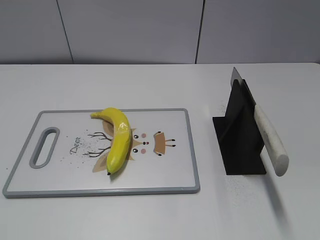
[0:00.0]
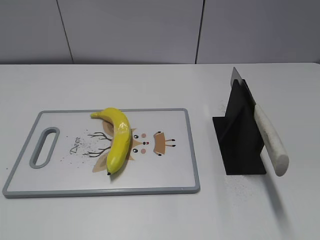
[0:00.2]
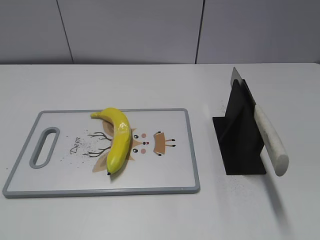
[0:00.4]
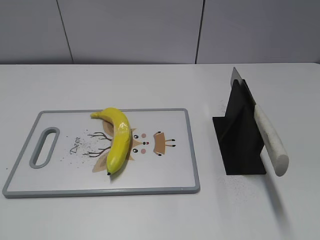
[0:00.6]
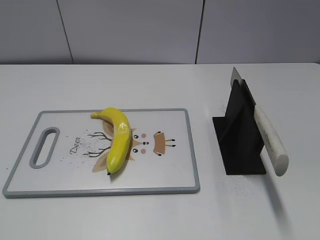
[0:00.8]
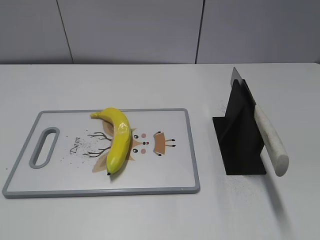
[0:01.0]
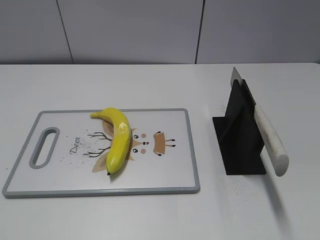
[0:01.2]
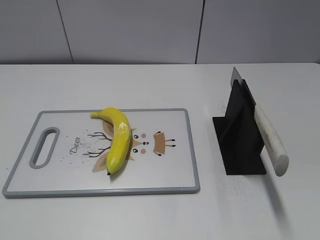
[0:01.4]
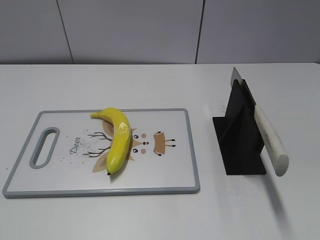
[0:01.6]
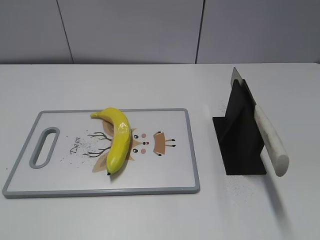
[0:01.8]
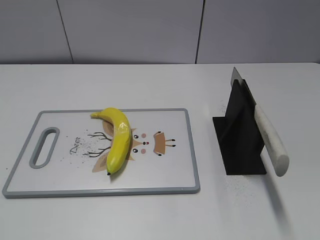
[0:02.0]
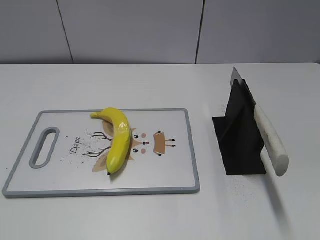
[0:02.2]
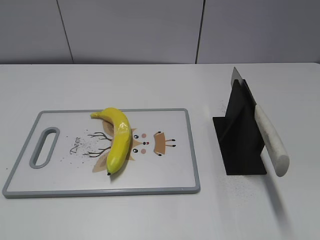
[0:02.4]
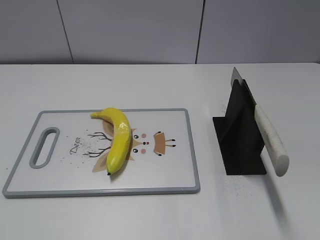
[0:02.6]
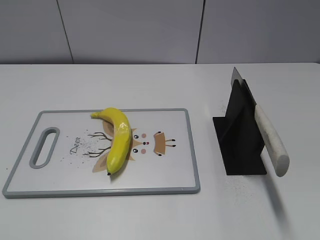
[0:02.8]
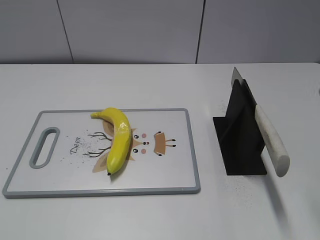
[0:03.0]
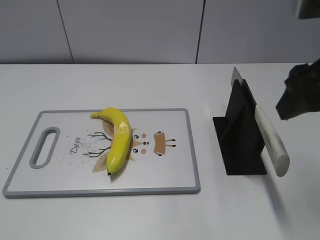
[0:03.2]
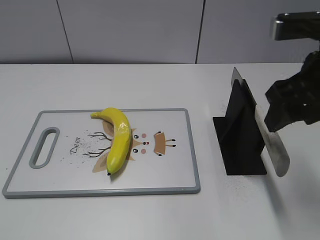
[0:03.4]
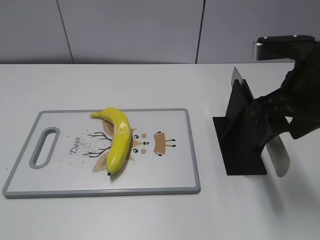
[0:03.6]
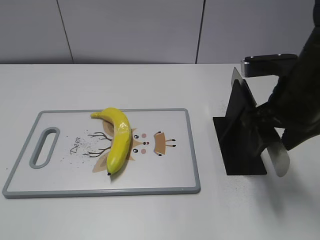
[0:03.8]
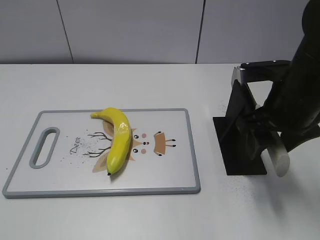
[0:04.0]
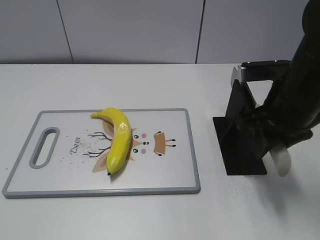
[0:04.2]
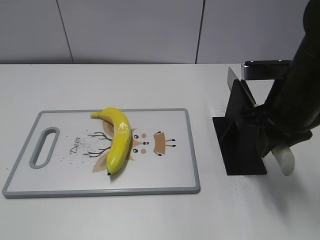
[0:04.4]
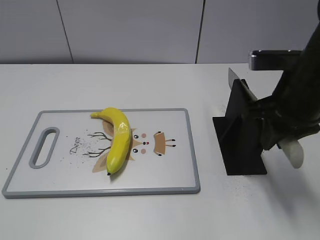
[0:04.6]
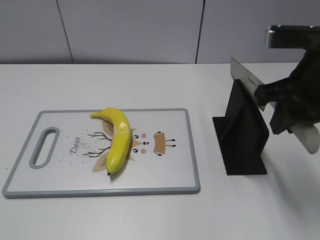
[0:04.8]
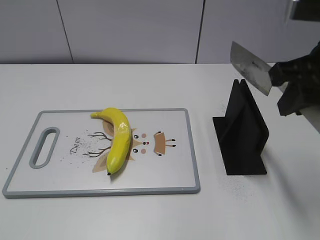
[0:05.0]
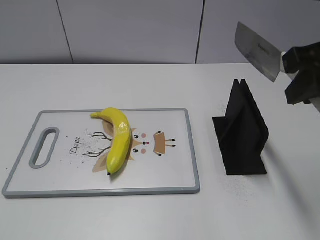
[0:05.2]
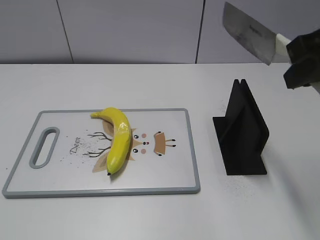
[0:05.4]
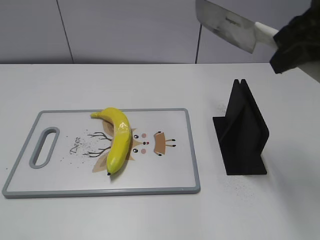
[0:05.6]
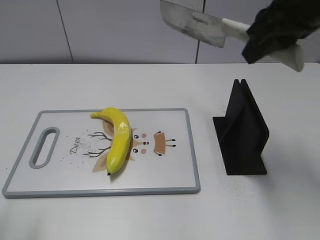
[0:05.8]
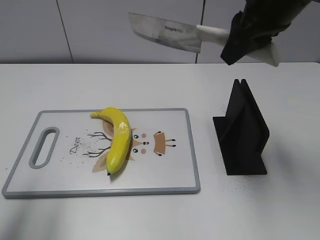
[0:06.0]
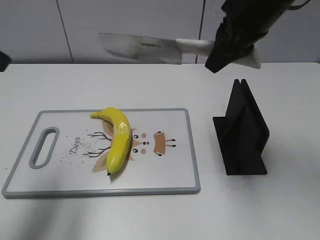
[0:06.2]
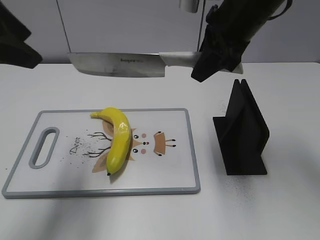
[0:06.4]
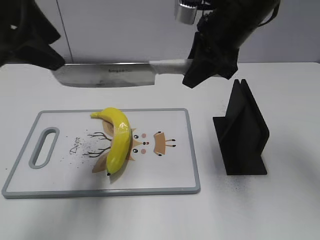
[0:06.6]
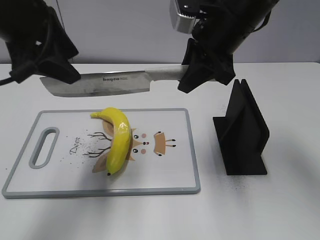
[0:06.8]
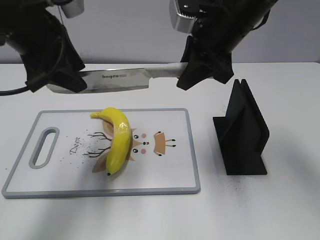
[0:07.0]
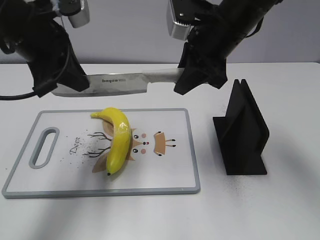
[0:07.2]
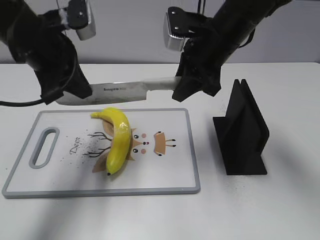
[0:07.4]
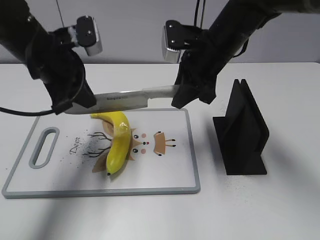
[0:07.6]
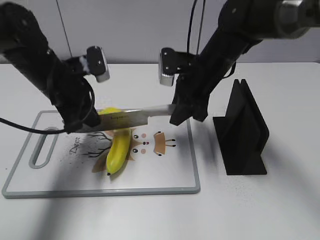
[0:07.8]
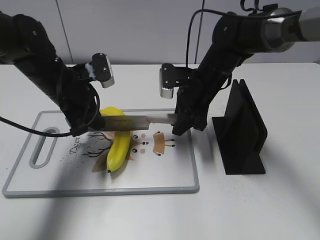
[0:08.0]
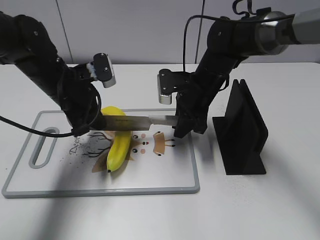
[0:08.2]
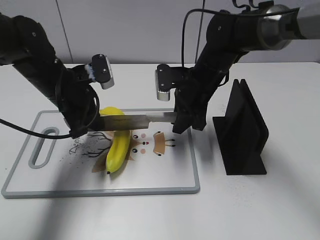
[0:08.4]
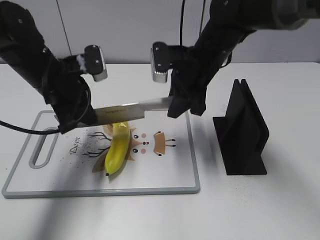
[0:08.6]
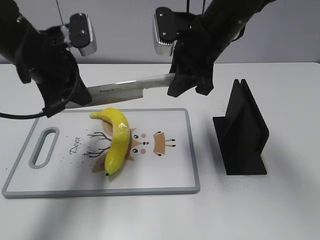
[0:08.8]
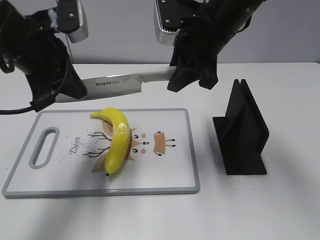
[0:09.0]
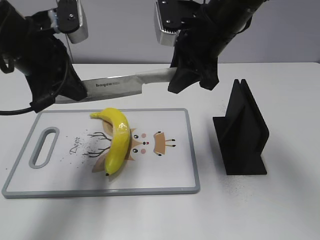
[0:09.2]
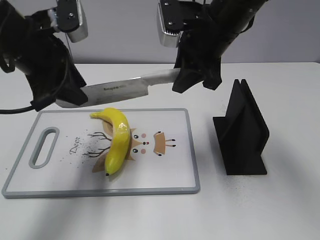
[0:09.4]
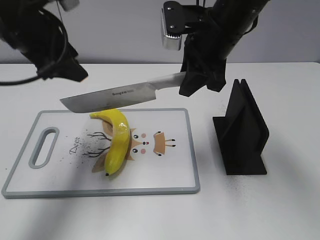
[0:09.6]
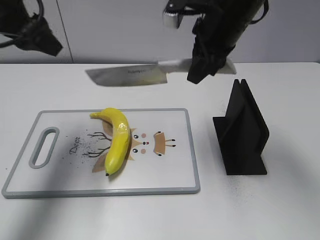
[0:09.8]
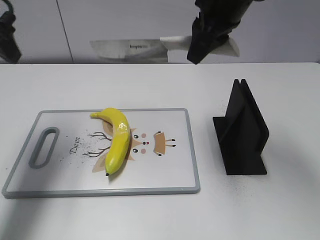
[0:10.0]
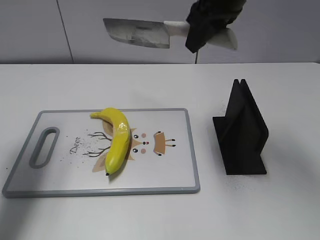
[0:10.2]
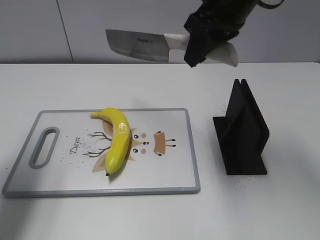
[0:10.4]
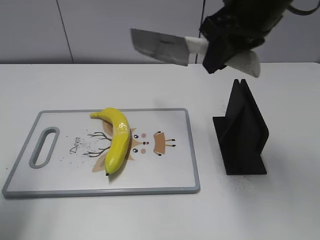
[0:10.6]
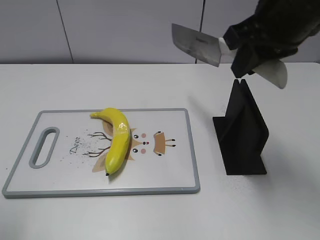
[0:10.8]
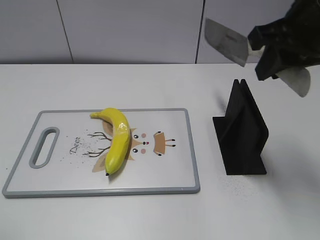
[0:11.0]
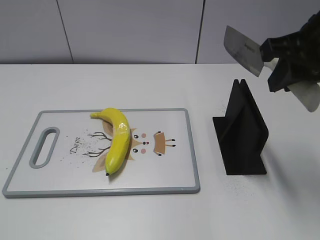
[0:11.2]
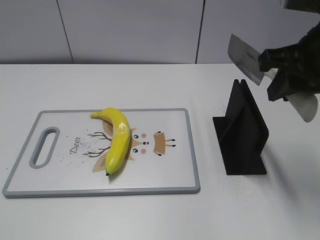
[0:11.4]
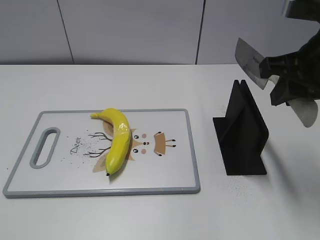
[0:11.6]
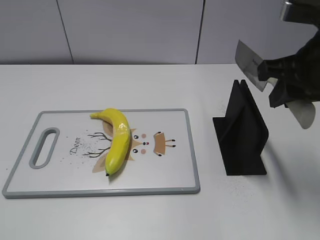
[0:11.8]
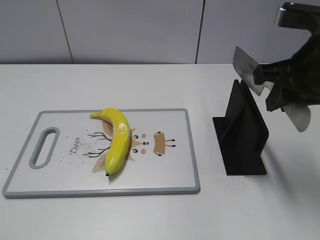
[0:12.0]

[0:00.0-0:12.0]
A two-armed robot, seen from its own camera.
Task of the whole recording: cut plastic banana.
Step, 0:00.0 to 0:05.2: Grab the knife handle with your right hand.
Step, 0:05.4 to 0:08.8: Lift the knife with your right hand.
Step, 0:09.2 to 0:09.8: Cut the banana with your right hand.
Step, 0:10.2 to 0:11.6: Lift the knife with your right hand.
0:03.0 to 0:04.4: The right gripper travels downward, forward and to the left by some 15 cm, and closes up.
0:04.4 to 0:06.0: The left gripper is displaced forward by roughly 15 cm, while the right gripper moves upward and forward, roughly 15 cm.
0:06.0 to 0:07.6: The left gripper travels forward, downward and to the right by some 25 cm, and closes up; the right gripper moves downward, forward and to the left, roughly 15 cm.
0:07.6 to 0:09.0: The left gripper ends up roughly 5 cm from where it was. Meanwhile the right gripper goes some 5 cm upward.
0:09.0 to 0:10.4: The right gripper moves upward, roughly 5 cm. Meanwhile the left gripper shifts about 10 cm to the left, and opens its fingers.
0:10.4 to 0:12.0: The right gripper is displaced to the right and backward by some 15 cm. The left gripper goes some 30 cm backward.

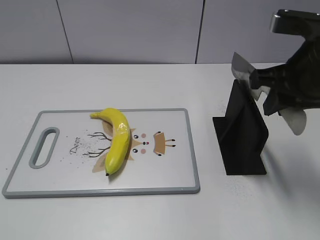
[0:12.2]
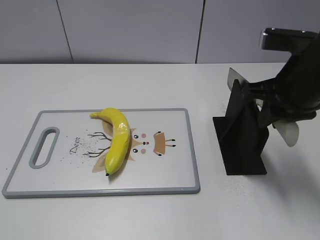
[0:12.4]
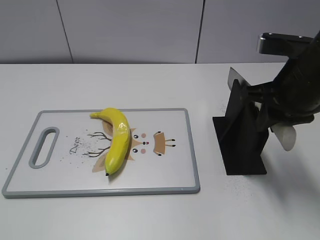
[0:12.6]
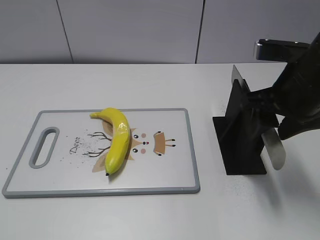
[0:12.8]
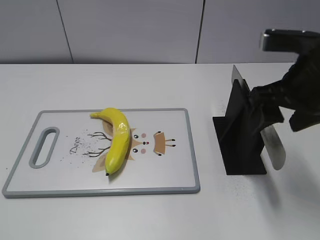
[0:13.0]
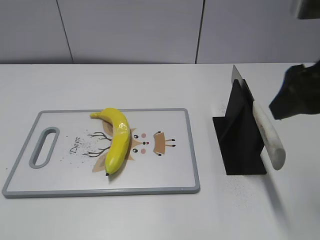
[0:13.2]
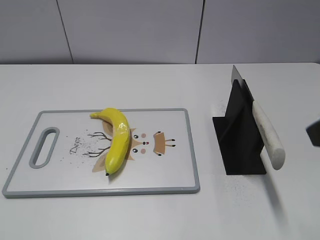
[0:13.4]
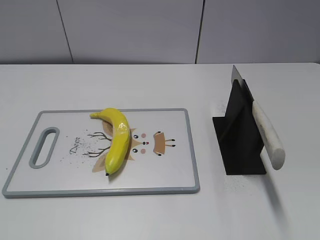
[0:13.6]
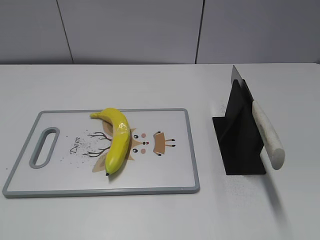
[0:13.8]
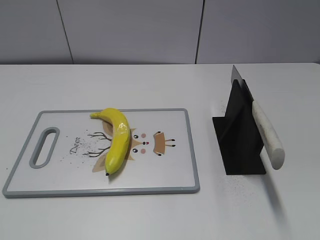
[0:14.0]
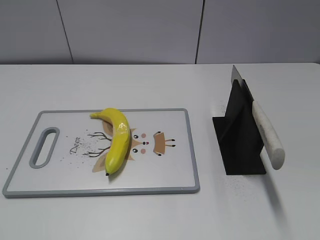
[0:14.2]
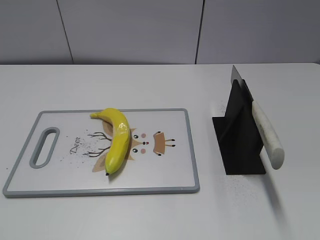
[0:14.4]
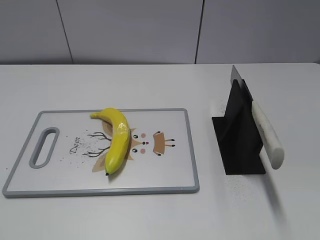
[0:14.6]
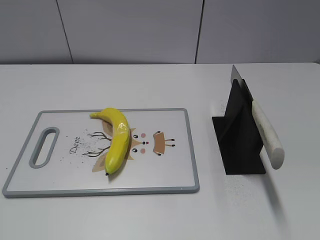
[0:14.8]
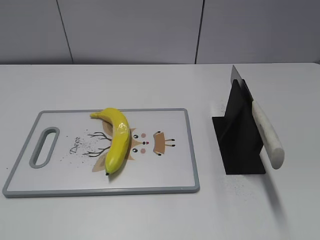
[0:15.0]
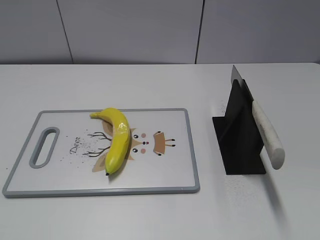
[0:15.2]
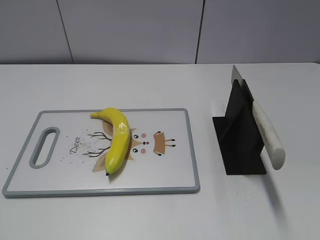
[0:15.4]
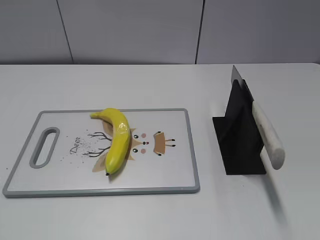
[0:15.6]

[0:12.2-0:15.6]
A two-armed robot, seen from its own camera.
Task of the whole recording: cut plastic banana.
Step, 0:12.2 to 0:15.6: Place the knife on the storage rack with your right hand.
0:12.2 to 0:13.8: The right gripper travels backward by about 20 cm, and opens.

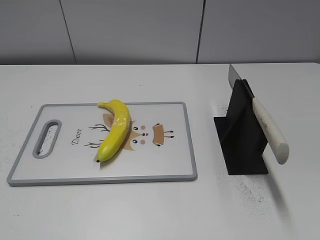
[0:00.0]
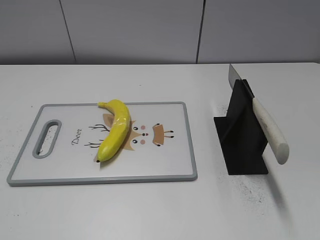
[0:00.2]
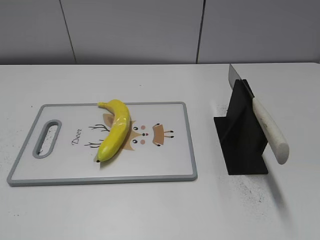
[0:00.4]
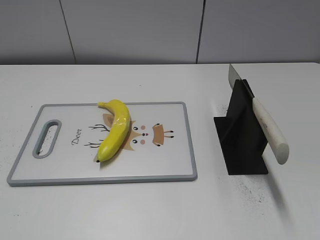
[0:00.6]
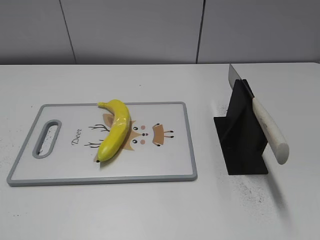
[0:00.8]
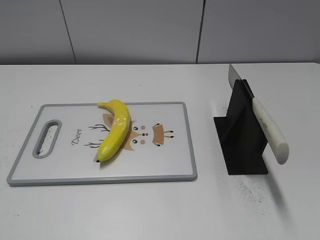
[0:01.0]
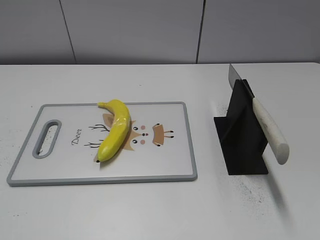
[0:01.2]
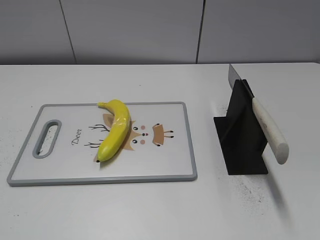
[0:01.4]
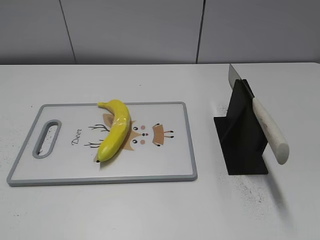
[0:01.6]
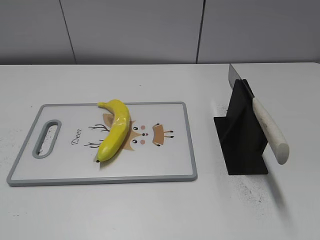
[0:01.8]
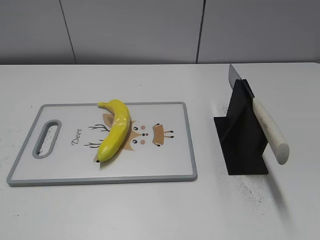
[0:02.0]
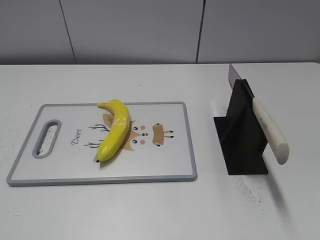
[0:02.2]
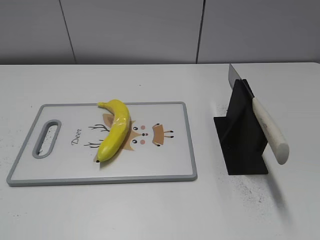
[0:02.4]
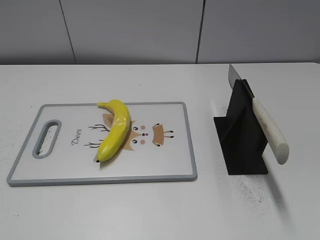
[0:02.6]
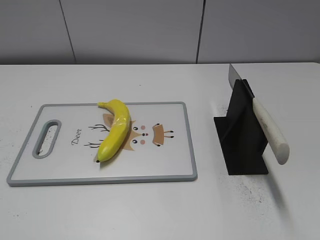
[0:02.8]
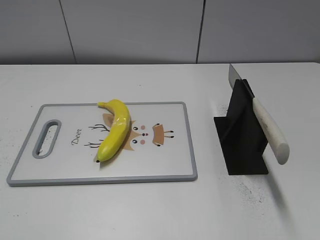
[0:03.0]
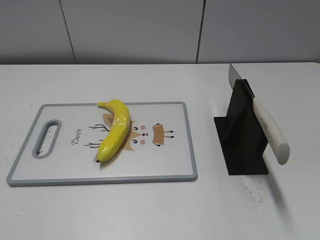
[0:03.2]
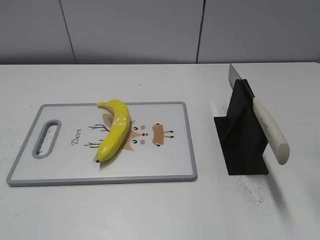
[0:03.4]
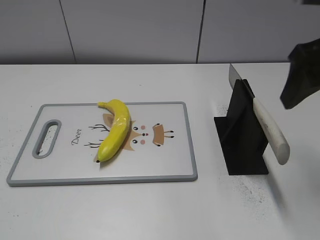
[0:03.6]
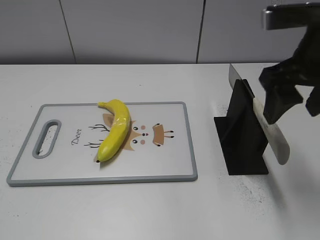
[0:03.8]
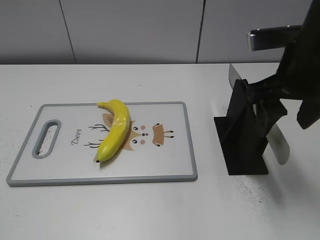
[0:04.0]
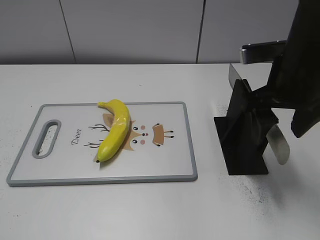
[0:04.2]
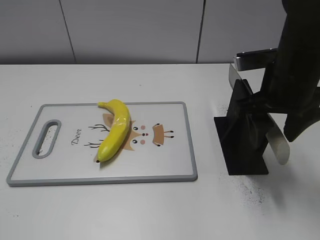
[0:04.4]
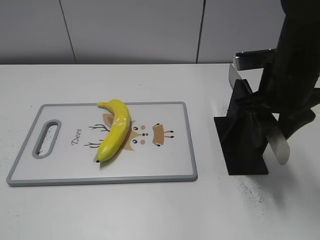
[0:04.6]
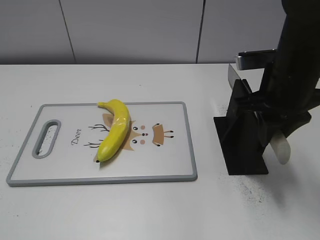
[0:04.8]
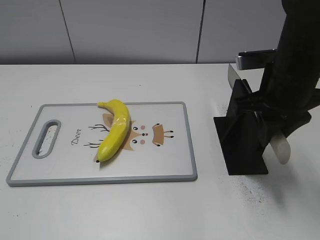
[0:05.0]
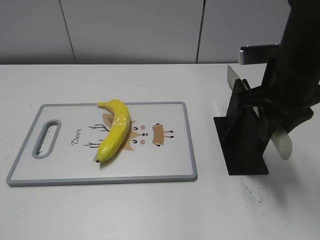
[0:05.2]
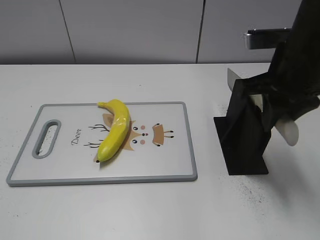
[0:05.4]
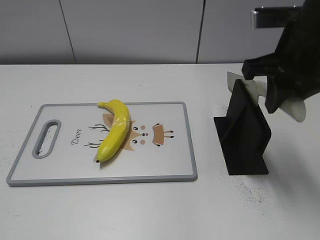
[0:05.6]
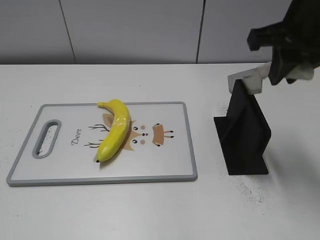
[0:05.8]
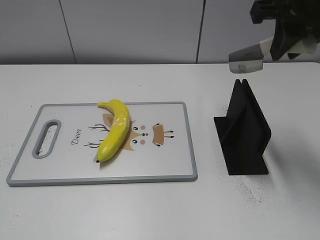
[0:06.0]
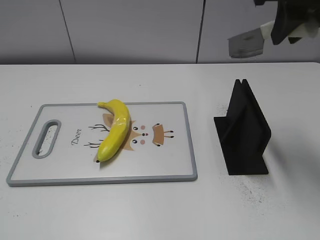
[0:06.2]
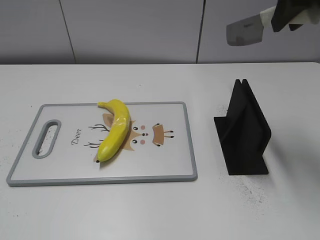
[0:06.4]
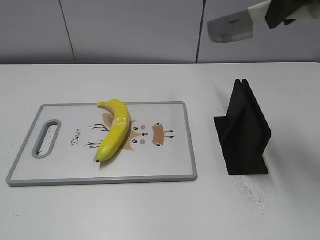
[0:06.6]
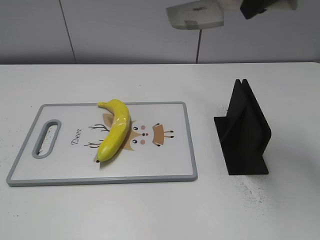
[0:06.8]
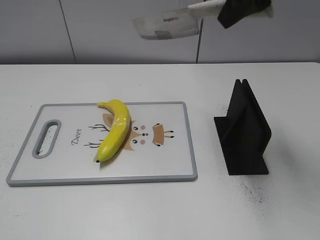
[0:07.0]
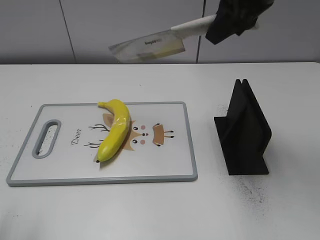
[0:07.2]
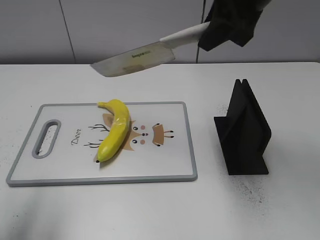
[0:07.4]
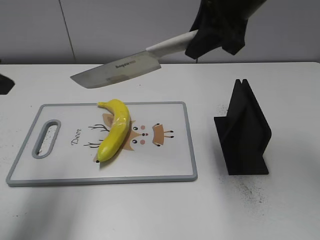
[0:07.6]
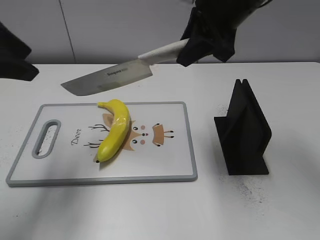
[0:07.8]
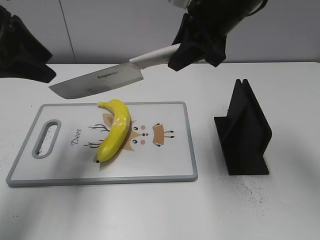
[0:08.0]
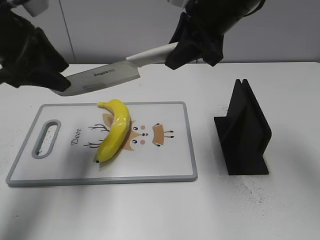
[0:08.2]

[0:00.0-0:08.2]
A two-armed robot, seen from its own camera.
Task of the whole recording: cut plastic banana.
Step, 0:00.0 to 0:05.6: Grab the knife handle with your right hand.
0:03.2 to 0:05.0: The right gripper moves downward, to the left and forward, about 20 cm, and closes its fingers.
0:05.0 to 0:06.6: The right gripper is displaced upward by roughly 15 cm.
0:06.6 to 0:08.2: The right gripper heads downward, to the left and forward, covering some 15 cm. The left gripper travels forward by about 30 cm.
